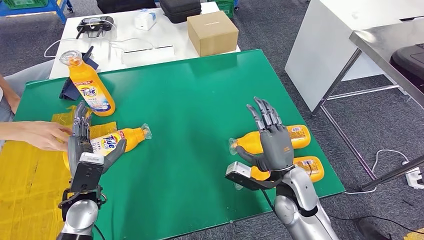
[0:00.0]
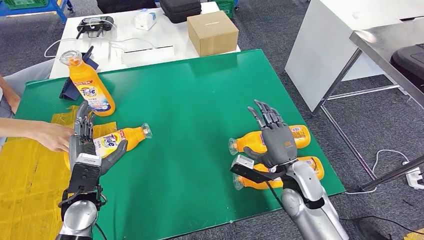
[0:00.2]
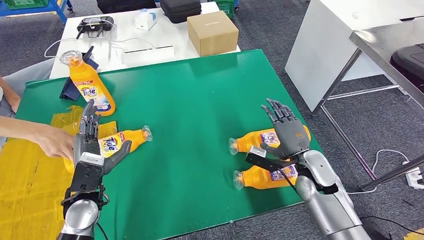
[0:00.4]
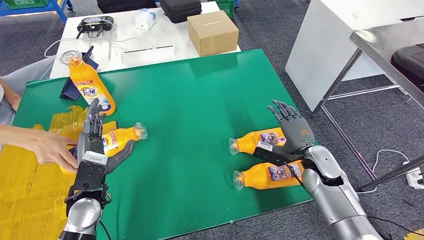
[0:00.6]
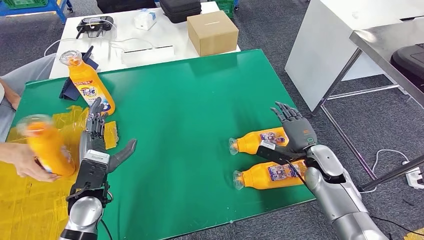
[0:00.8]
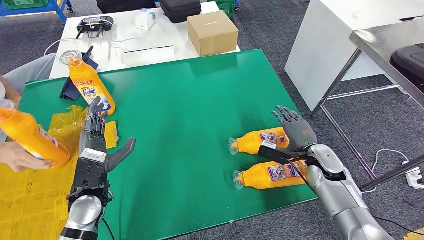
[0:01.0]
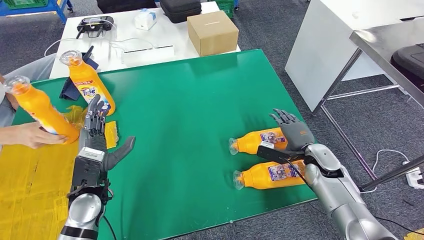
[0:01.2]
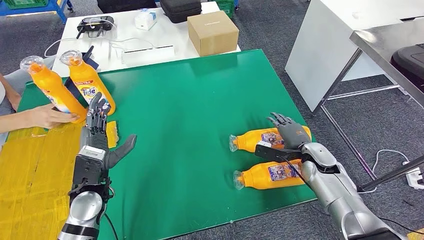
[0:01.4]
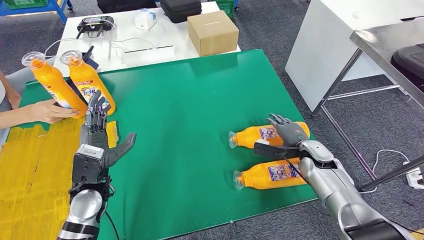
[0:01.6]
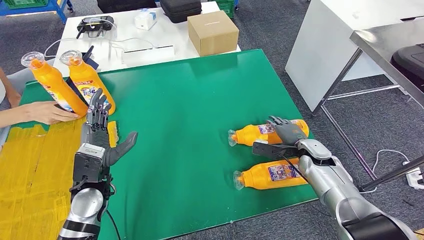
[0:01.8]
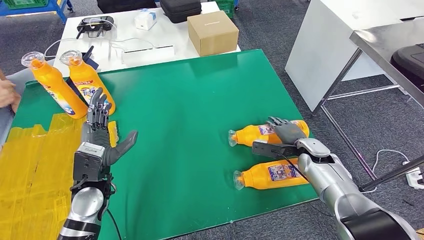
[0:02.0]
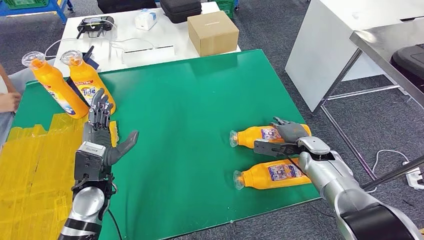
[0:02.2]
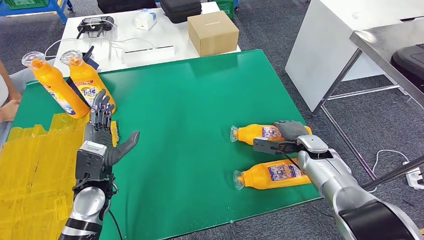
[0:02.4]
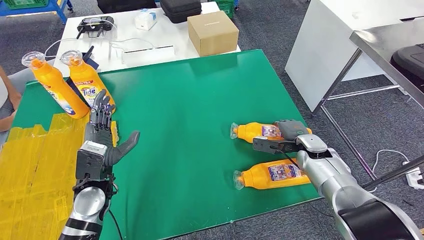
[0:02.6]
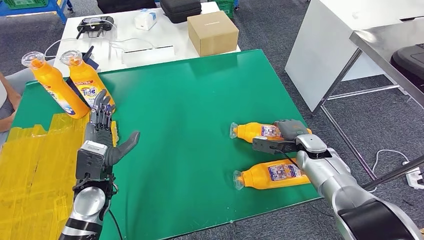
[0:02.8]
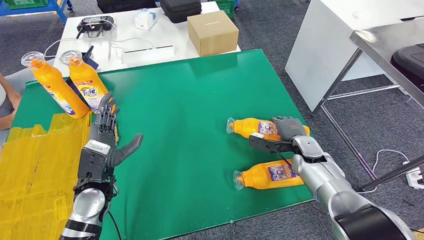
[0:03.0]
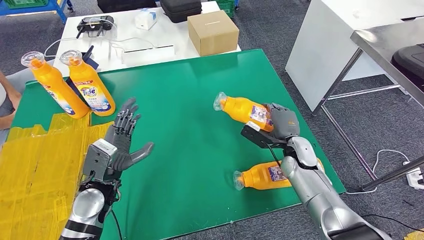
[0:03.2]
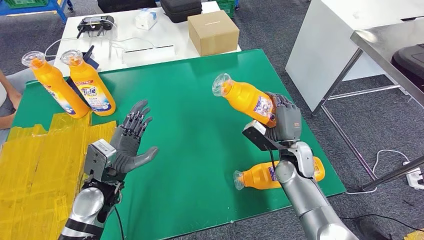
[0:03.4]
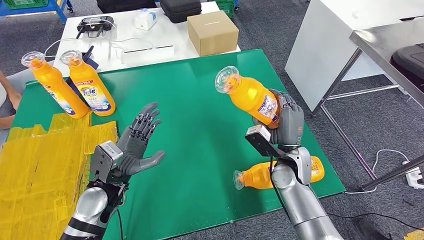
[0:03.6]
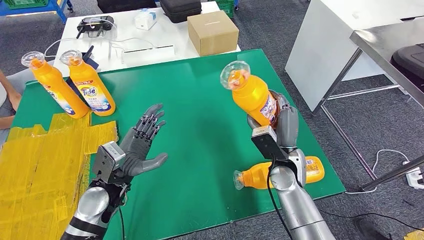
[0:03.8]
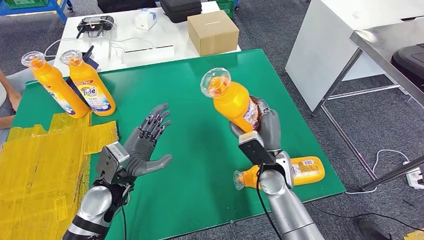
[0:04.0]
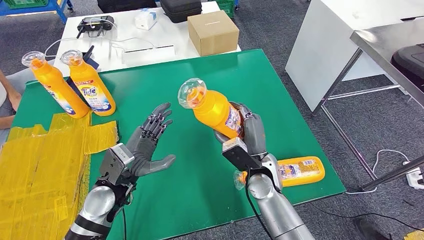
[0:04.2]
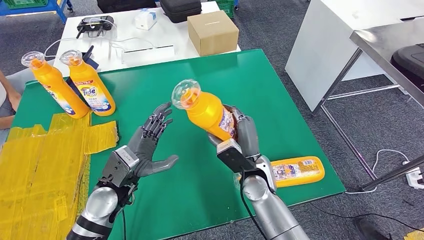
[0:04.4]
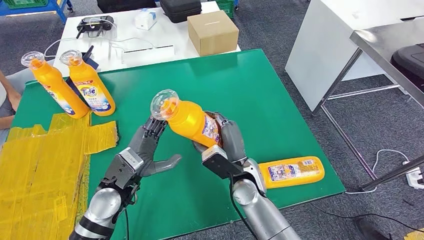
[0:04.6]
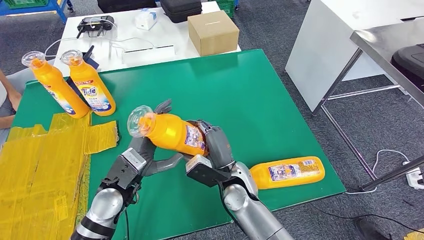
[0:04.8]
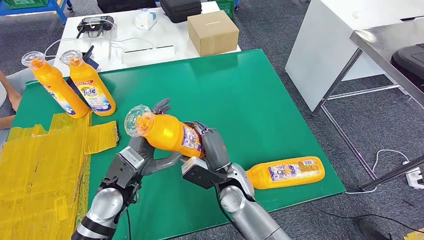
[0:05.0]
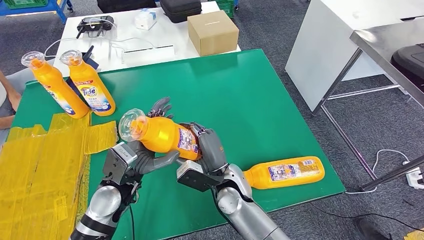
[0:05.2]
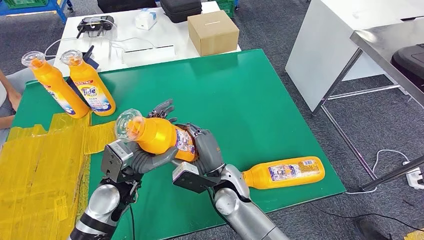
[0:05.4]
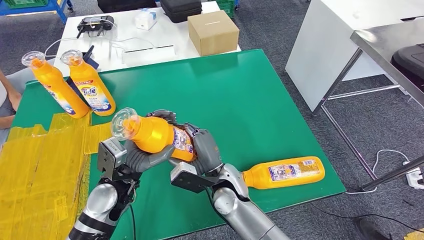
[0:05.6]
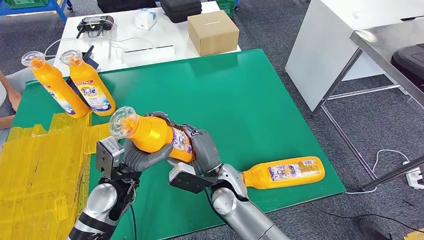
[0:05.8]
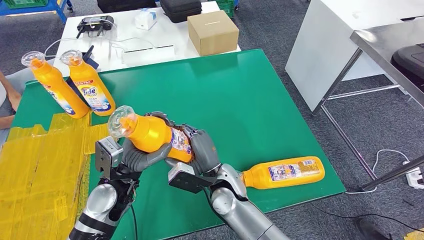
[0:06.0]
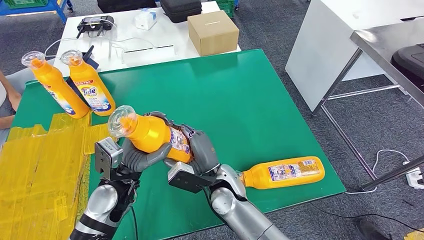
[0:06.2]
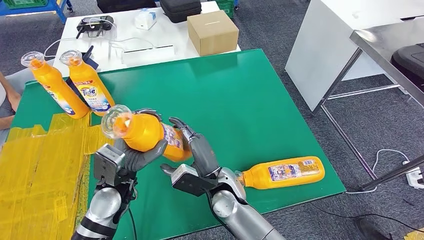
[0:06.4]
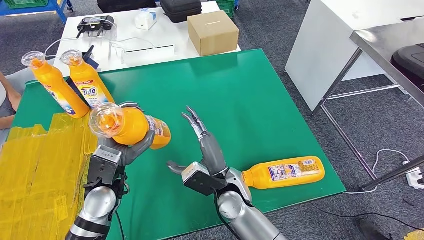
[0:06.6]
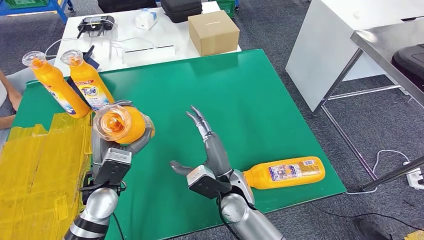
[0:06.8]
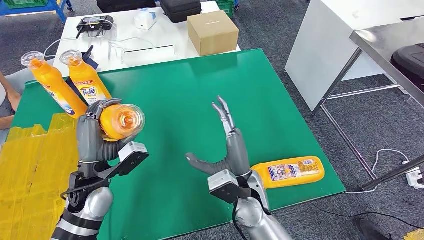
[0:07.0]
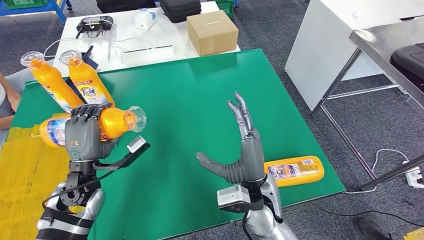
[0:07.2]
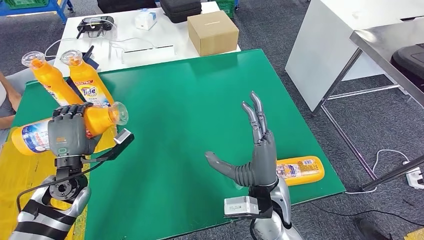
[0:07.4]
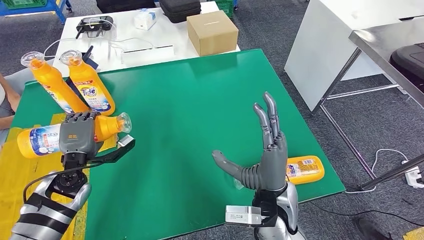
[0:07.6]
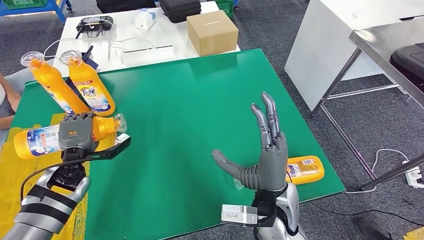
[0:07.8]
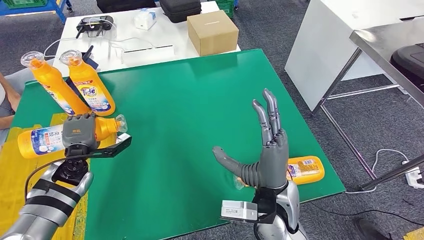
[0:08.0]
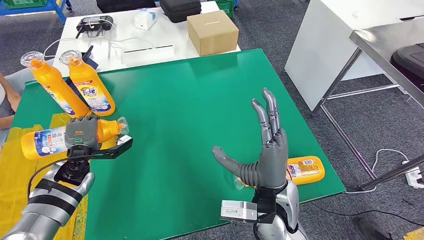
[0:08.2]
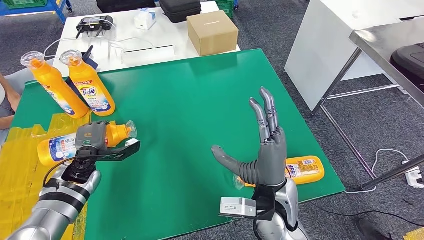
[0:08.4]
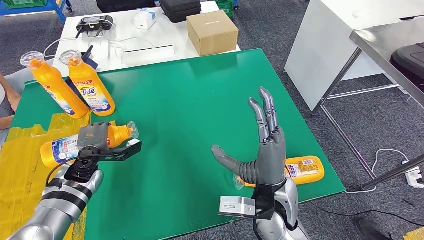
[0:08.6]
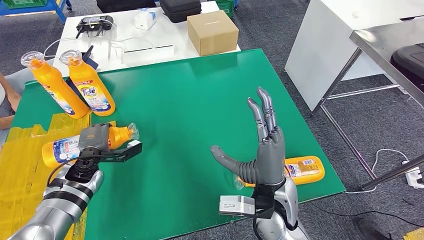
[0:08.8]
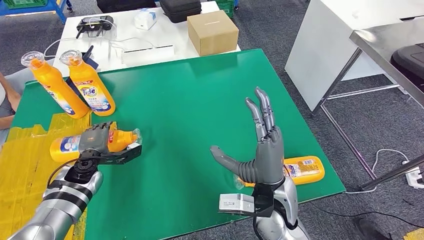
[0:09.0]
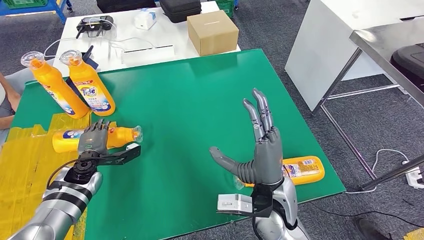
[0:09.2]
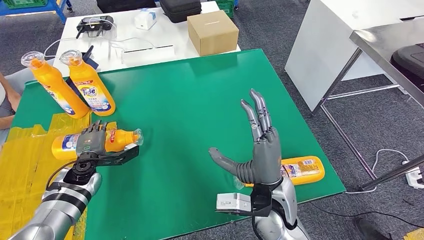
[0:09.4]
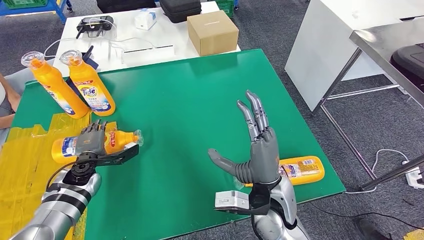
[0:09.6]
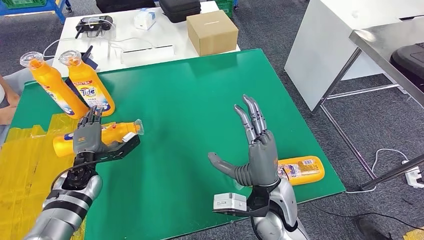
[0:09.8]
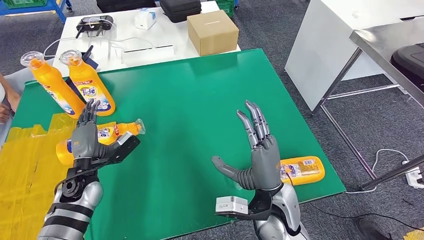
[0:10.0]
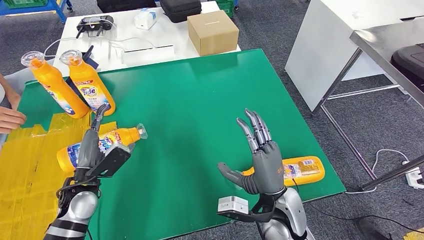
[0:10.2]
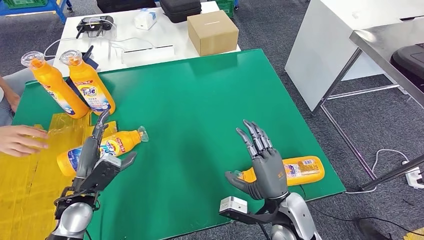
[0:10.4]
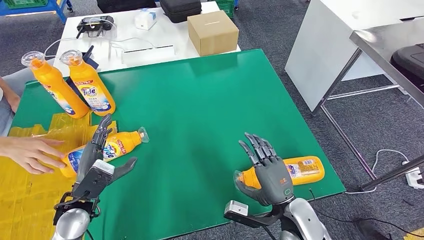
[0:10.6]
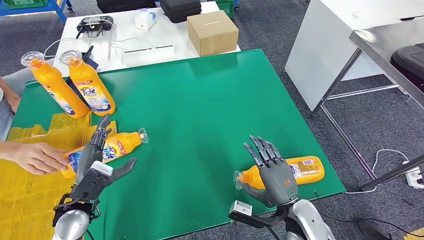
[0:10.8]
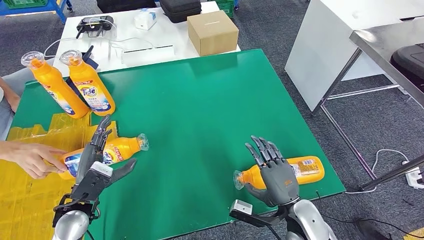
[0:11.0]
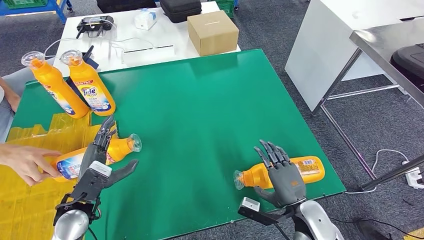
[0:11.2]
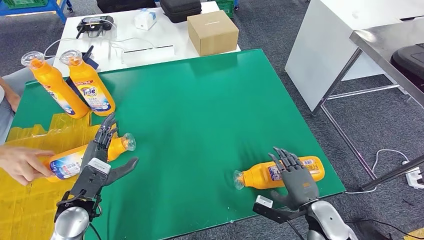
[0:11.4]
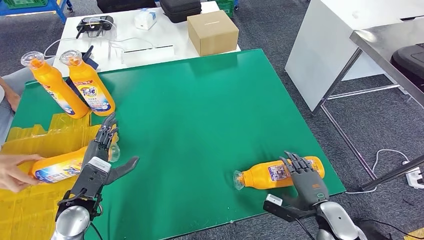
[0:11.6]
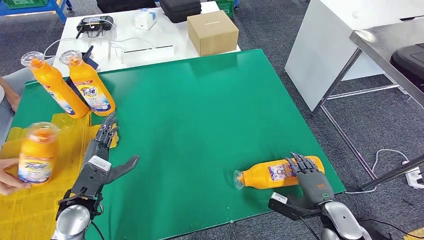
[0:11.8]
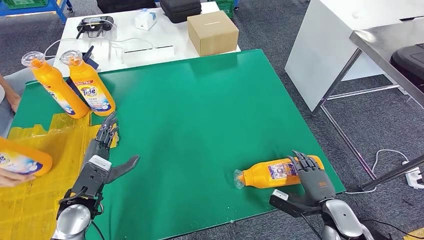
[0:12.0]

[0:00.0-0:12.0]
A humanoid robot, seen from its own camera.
Step, 0:02.0 to 0:04.2: Pick up the bottle from the table.
Step, 0:04.6 to 0:07.6: Flip the bottle to face forward.
0:01.6 to 0:03.0: The hands move only a little.
0:03.0 to 0:04.4: The right hand heads to the left and backward, covering roughly 20 cm.
0:04.4 to 0:06.0: The right hand is displaced to the left by some 10 cm.
0:07.6 to 0:09.0: The left hand moves downward, approximately 5 cm.
0:09.0 to 0:10.4: The right hand moves downward, some 5 cm. Meanwhile the left hand heads backward, covering approximately 10 cm.
0:10.4 to 0:12.0: The right hand shifts approximately 20 cm to the right and downward.

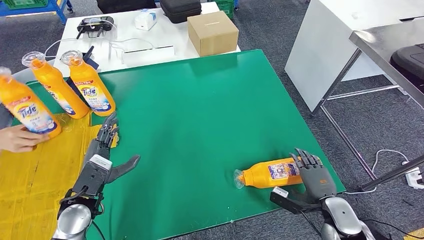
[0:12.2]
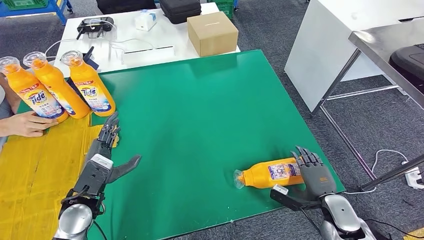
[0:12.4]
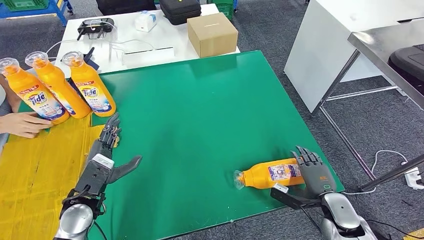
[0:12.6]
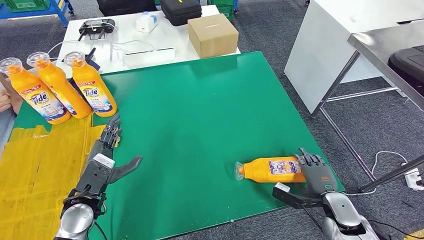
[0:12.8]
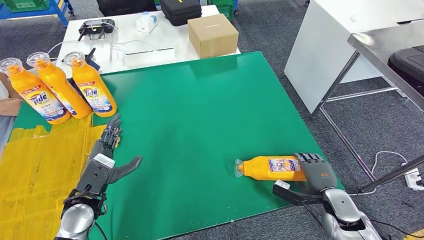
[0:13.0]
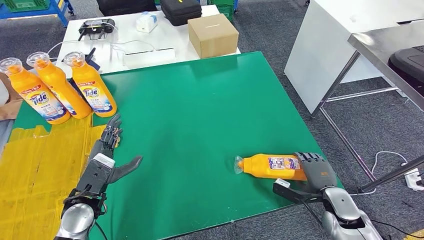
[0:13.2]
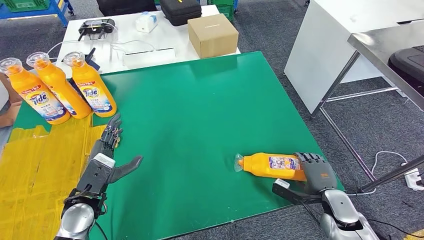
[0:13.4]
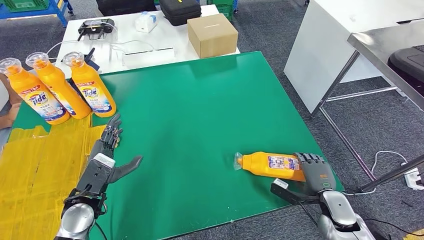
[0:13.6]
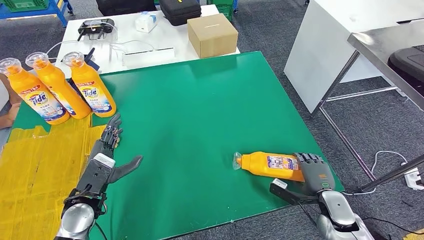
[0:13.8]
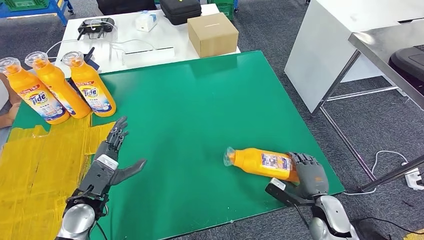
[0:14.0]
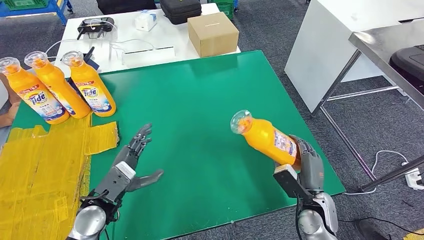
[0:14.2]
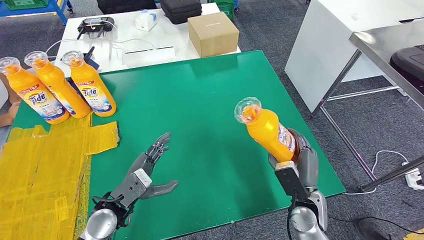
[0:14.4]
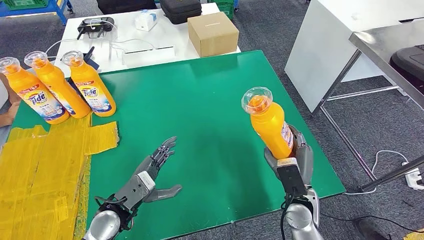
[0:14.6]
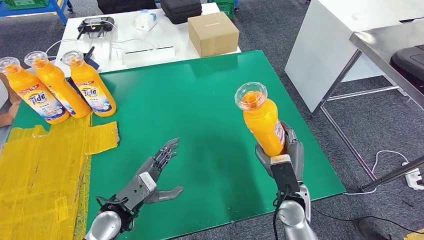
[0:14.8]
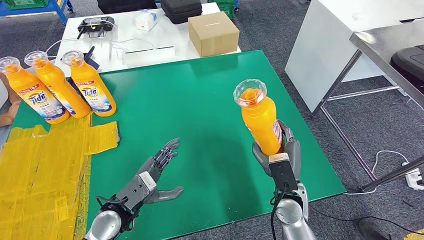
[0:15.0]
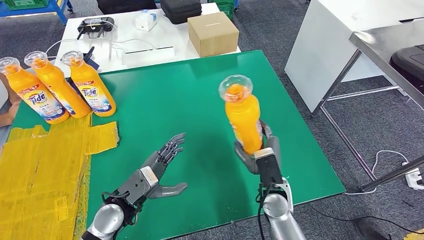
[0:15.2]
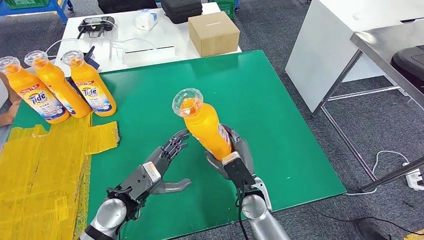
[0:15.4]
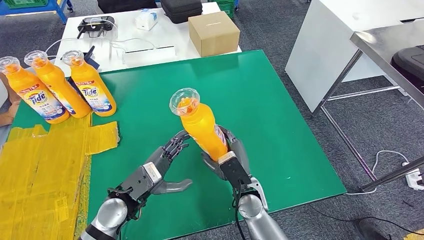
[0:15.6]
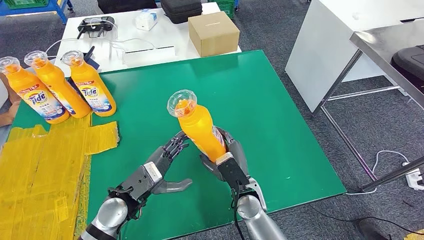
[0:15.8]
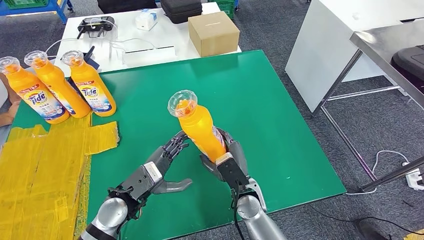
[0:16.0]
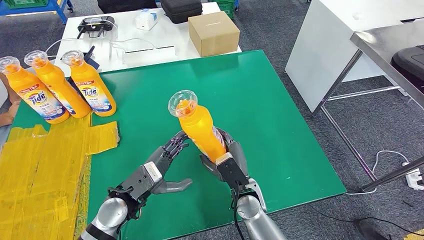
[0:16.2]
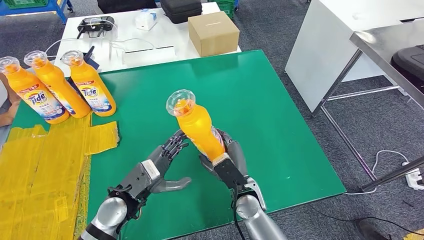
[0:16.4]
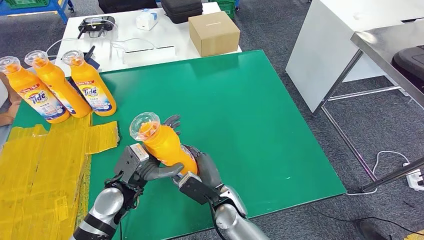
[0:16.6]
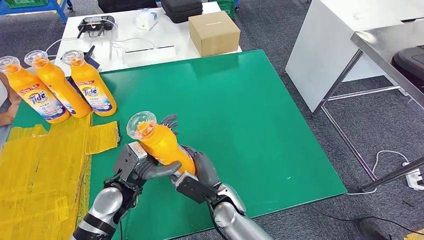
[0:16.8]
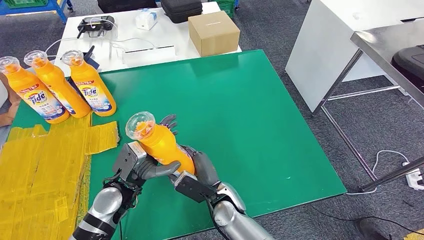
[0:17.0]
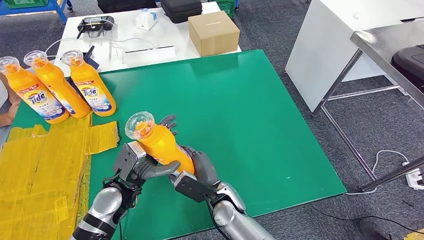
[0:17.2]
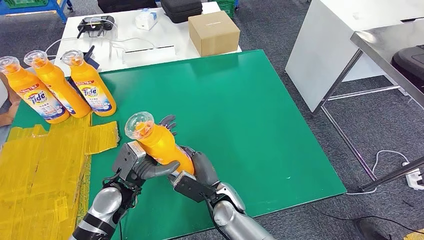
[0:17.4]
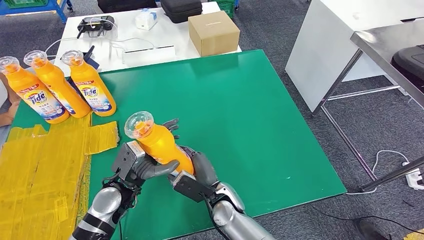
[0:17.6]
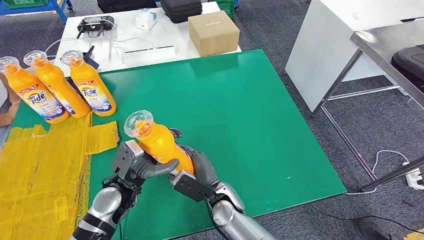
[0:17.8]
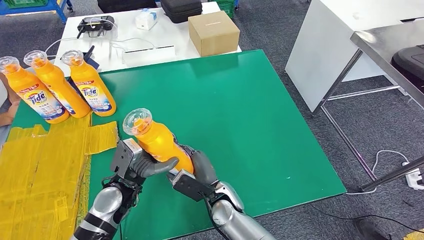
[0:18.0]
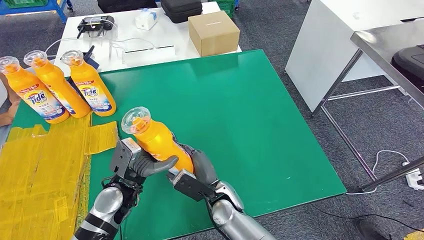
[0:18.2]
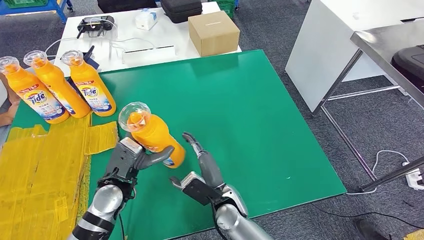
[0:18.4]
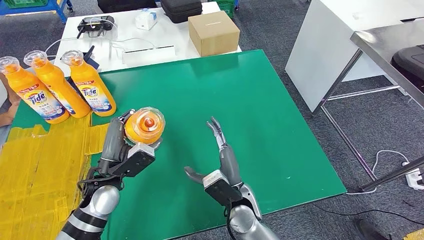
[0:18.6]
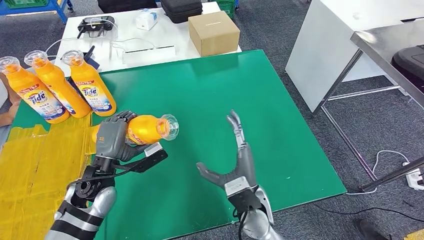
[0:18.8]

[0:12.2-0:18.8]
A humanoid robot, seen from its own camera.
Step, 0:12.2 to 0:15.0: Pick up the bottle from the table.
0:12.2 to 0:13.8: The hands stay close to where they were, moving slightly.
0:15.4 to 0:17.2: The right hand is displaced to the left by about 10 cm.
0:17.2 to 0:18.8: The right hand heads to the right and upward, covering about 10 cm. Meanwhile the left hand goes roughly 5 cm to the left.
